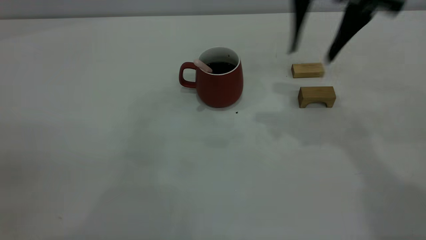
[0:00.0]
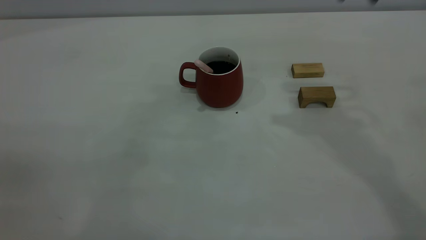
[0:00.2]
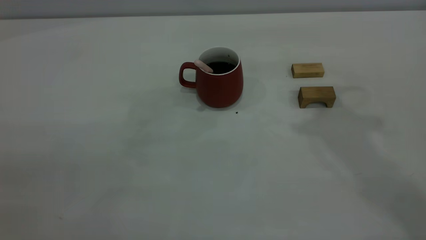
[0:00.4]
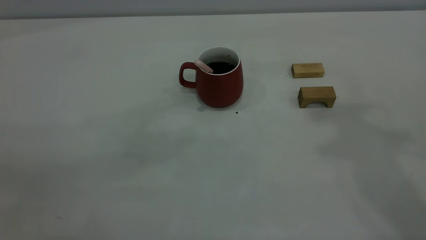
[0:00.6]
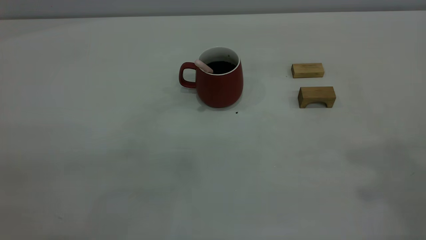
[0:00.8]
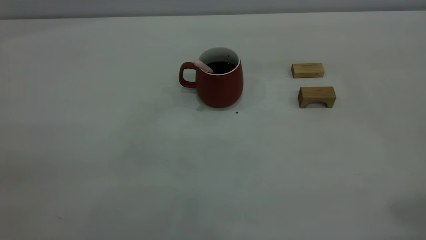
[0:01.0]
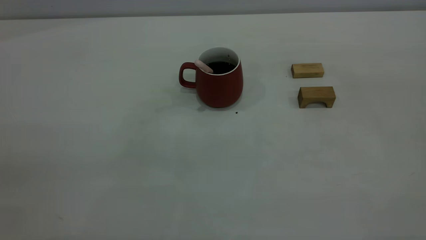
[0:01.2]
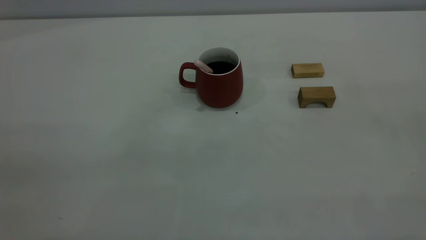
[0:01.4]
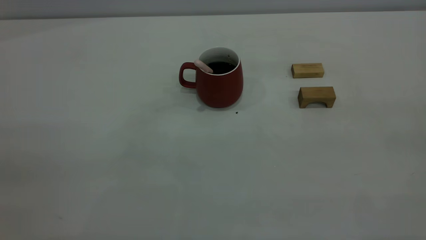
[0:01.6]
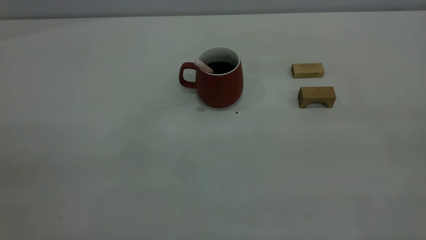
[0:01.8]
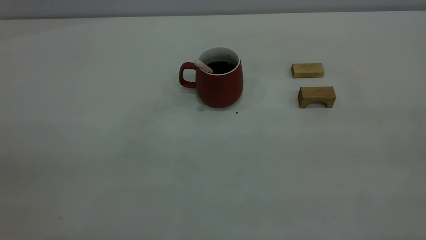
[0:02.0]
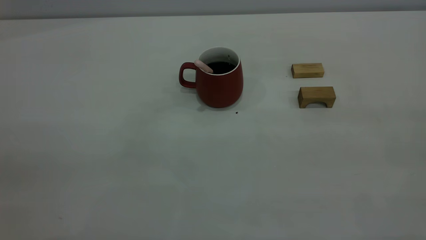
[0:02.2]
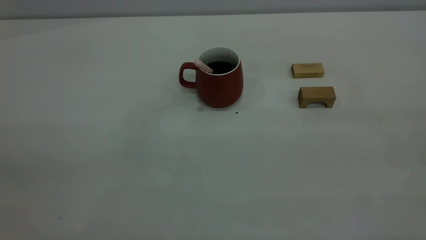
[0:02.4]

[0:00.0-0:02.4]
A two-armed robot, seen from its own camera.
0:00.0 to 0:01.2: The right gripper heads backward, upward and to the right, covering approximately 40 cm, and closes up.
